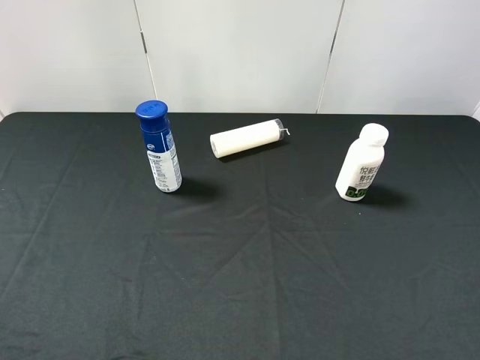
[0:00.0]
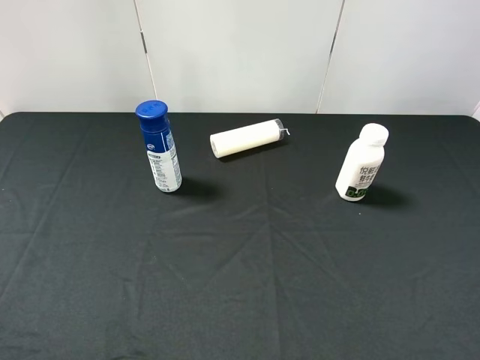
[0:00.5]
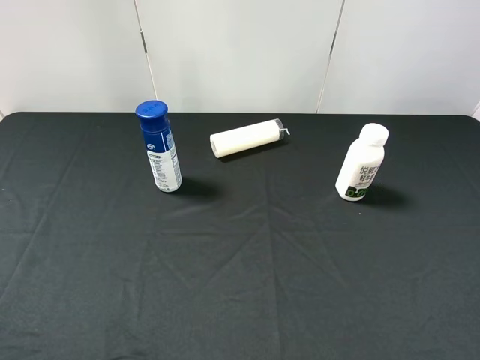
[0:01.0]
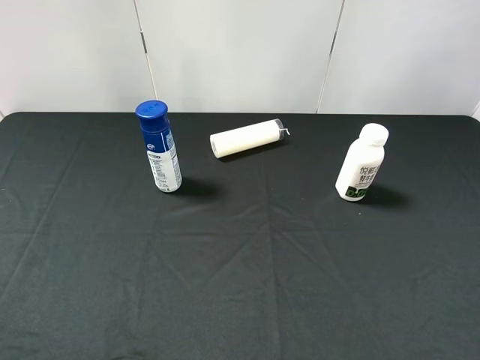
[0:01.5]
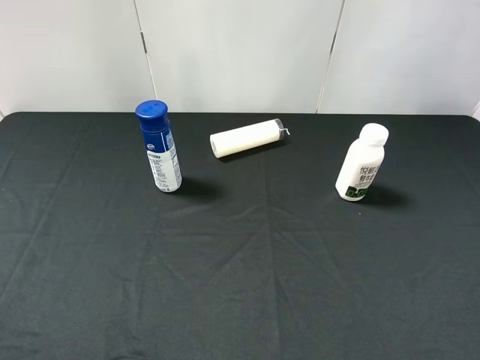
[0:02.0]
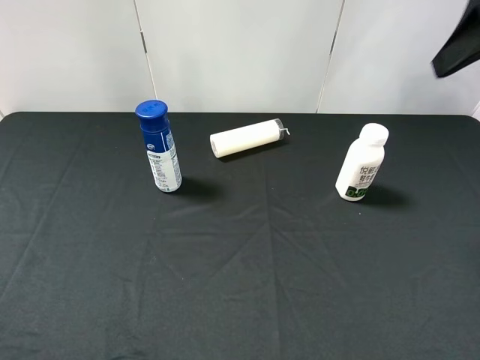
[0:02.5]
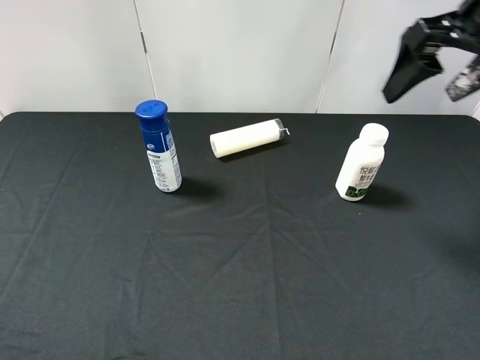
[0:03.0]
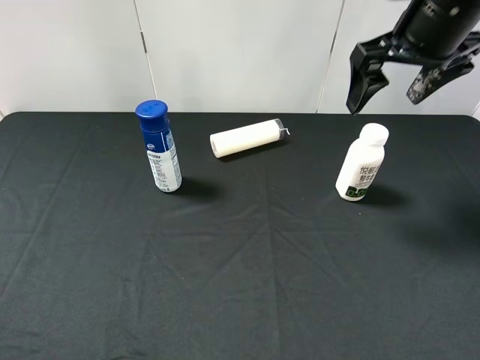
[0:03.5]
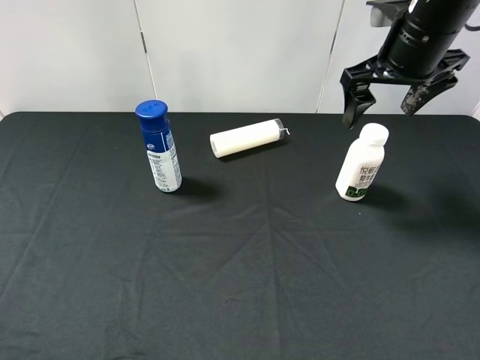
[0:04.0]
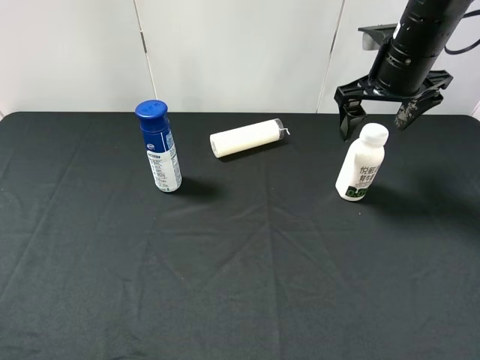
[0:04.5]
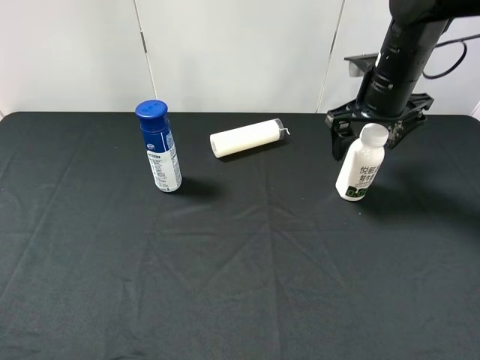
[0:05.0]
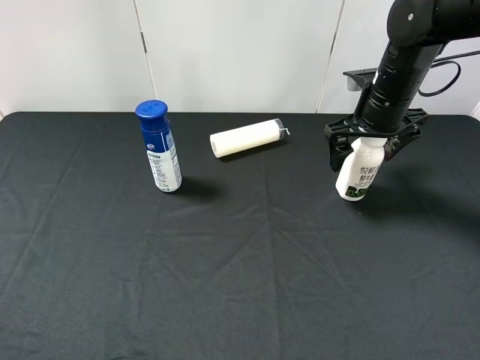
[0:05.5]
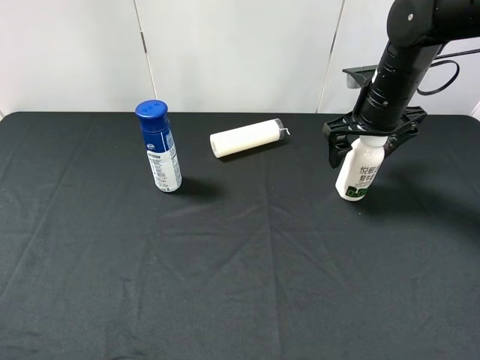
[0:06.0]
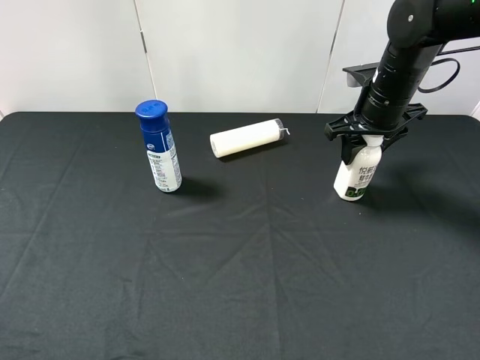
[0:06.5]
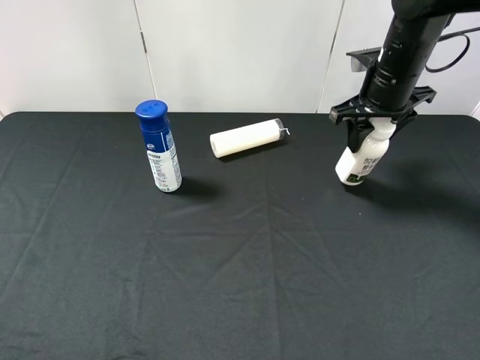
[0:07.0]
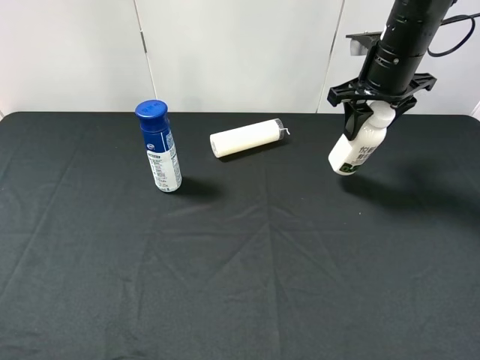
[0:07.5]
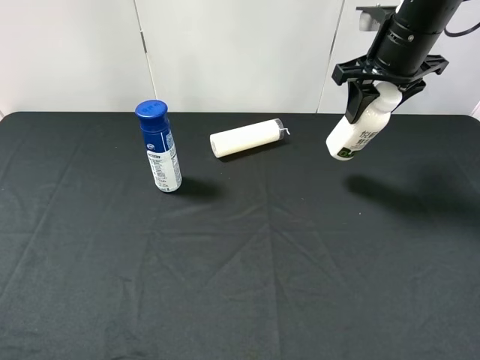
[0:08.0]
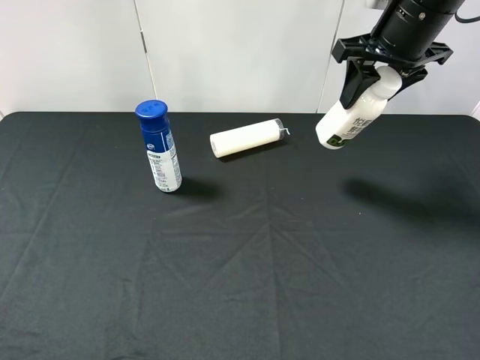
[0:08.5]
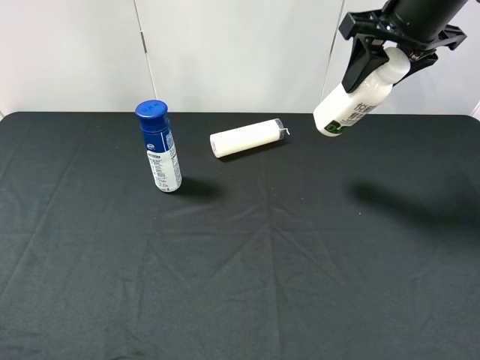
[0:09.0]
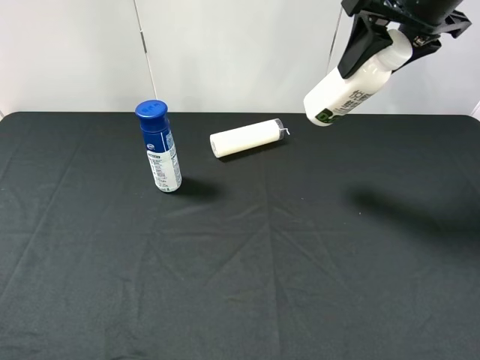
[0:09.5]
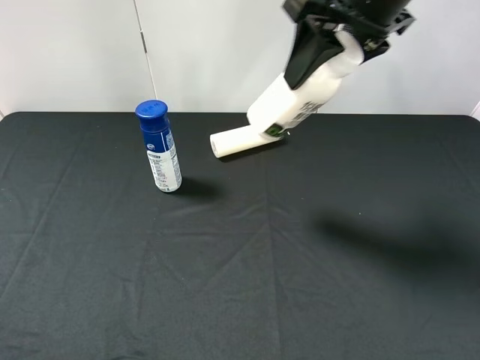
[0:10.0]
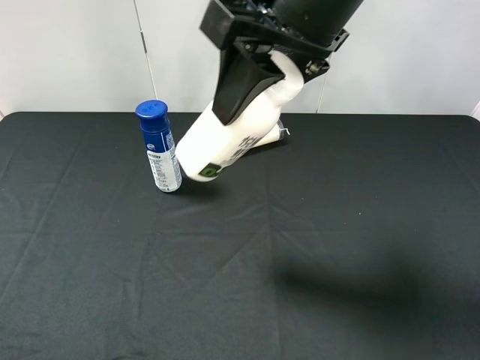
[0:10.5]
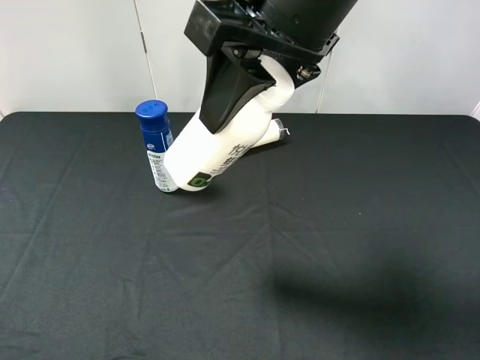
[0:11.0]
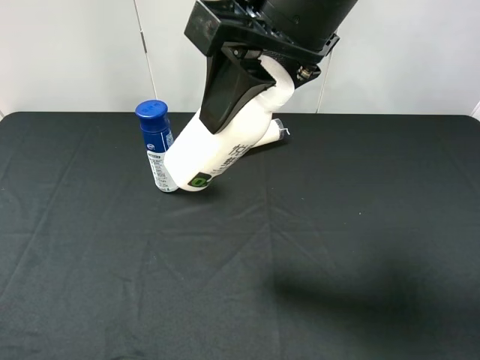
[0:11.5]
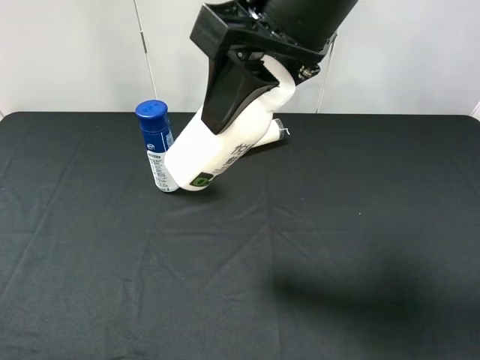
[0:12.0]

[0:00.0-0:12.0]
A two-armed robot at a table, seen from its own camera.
Task of the whole recording: use the right gripper to pick up the item and transfer it from the right gripper to the left gripper.
Step, 0:00.0 to 0:06.0: Use the right gripper to grab the milk on the right side of the table.
0:02.0 to 0:04.0: The right gripper is displaced forward and downward by some 25 cm.
0:04.0 to 0:06.0: The right gripper shifts about 10 cm downward.
0:06.0 to 0:08.0: The right gripper is displaced upward by approximately 10 cm, and closes up.
0:08.0 to 0:10.0: The right gripper moves backward, to the left and upward, about 15 cm.
0:10.0 to 0:12.0: The right gripper is displaced to the left and backward by roughly 10 cm.

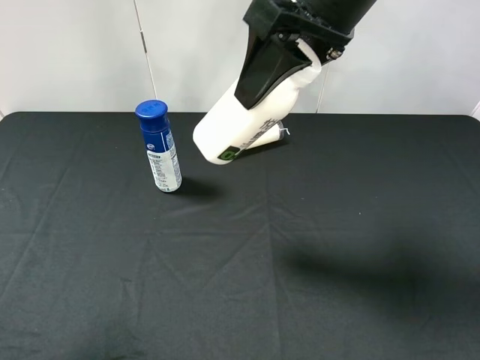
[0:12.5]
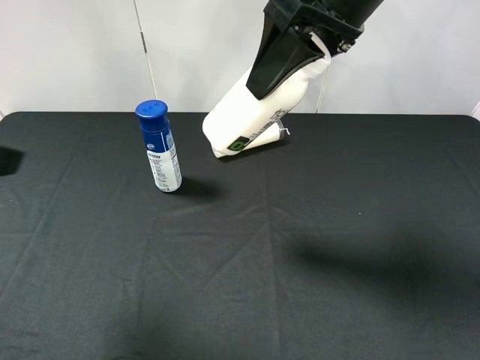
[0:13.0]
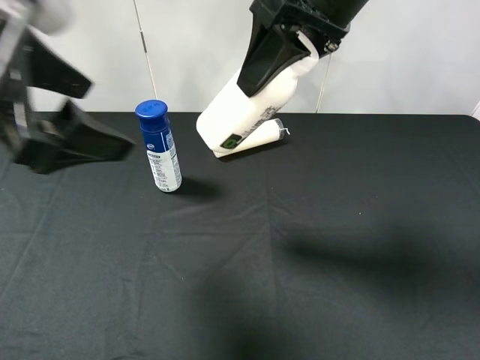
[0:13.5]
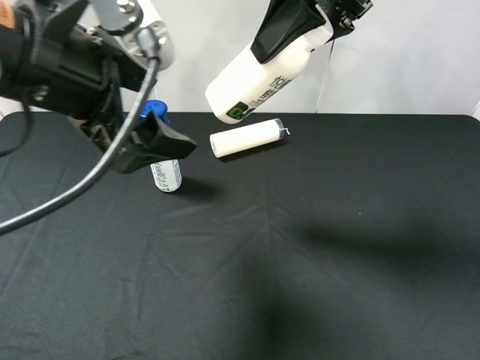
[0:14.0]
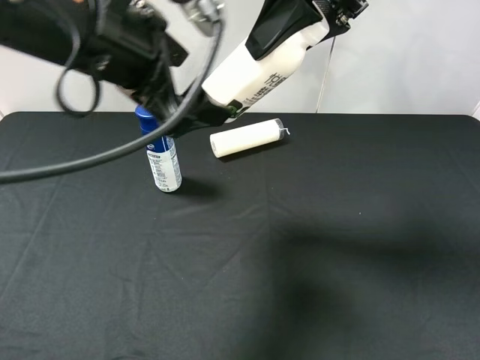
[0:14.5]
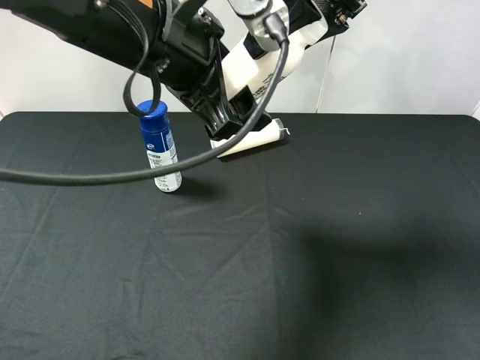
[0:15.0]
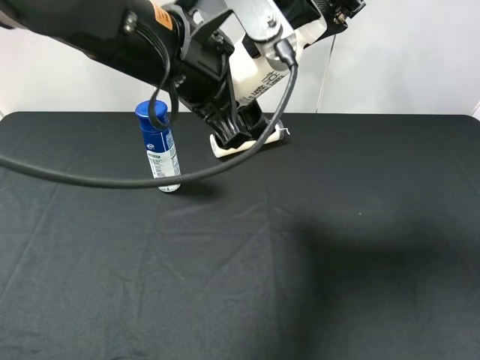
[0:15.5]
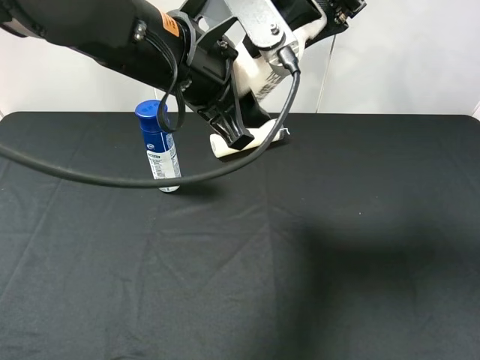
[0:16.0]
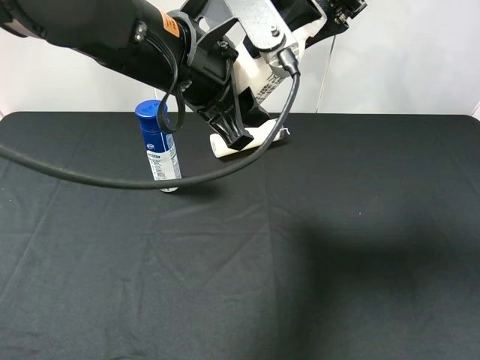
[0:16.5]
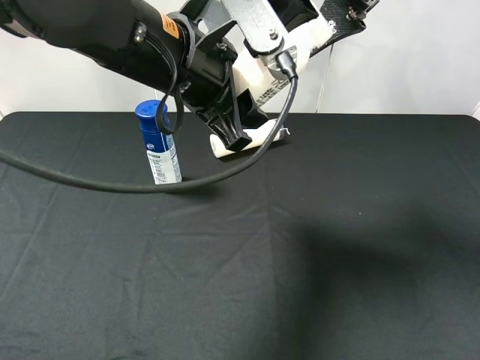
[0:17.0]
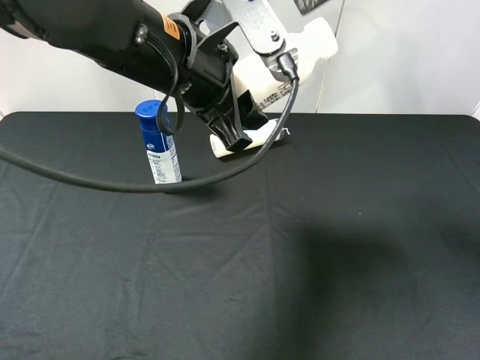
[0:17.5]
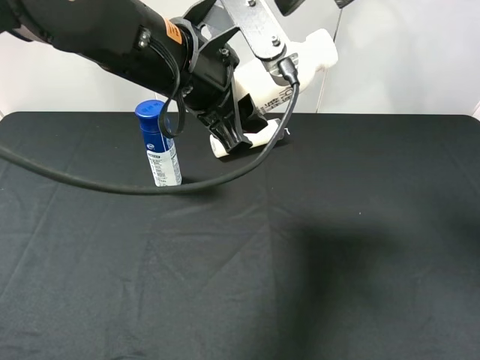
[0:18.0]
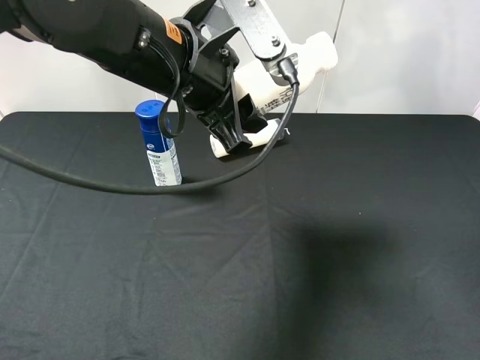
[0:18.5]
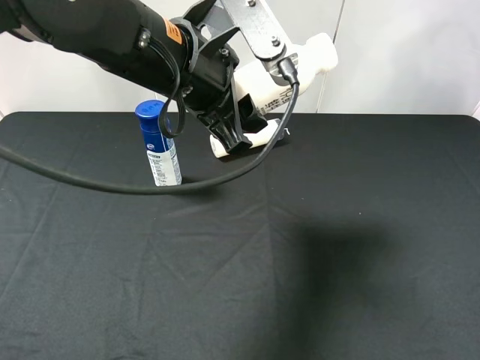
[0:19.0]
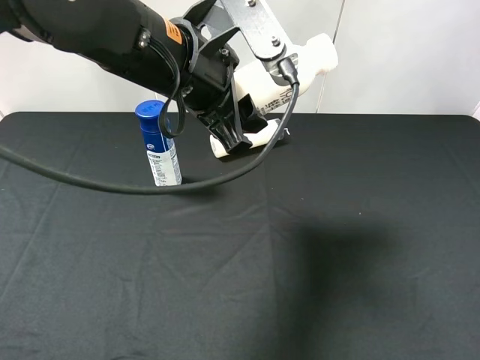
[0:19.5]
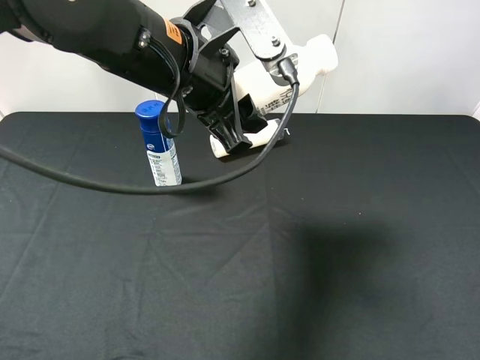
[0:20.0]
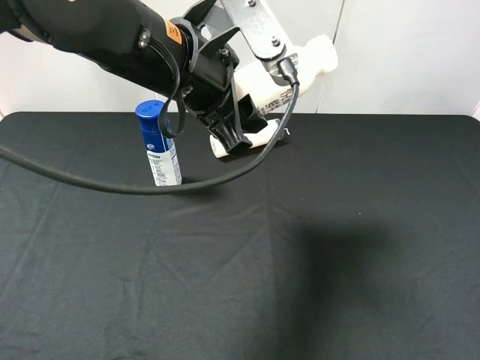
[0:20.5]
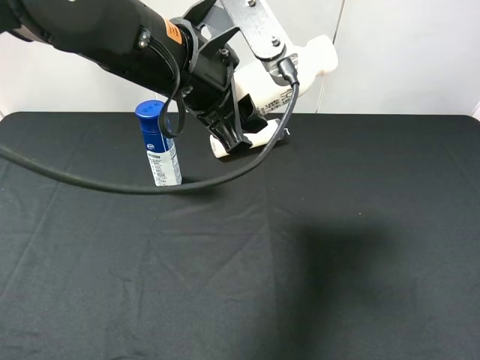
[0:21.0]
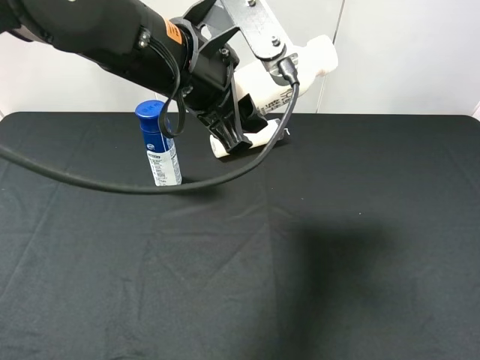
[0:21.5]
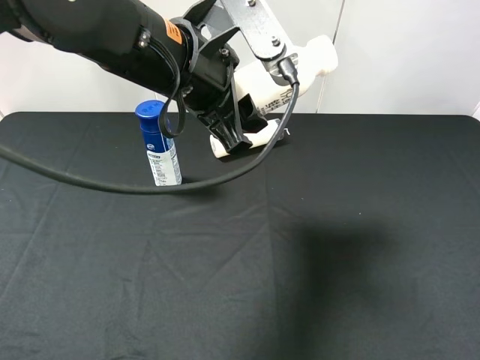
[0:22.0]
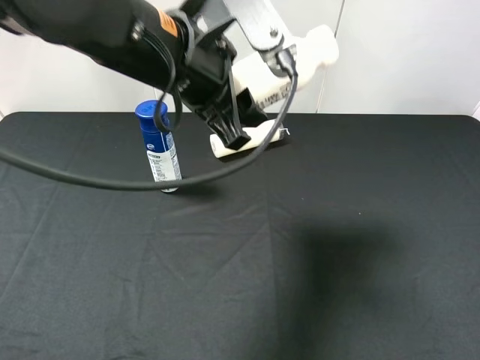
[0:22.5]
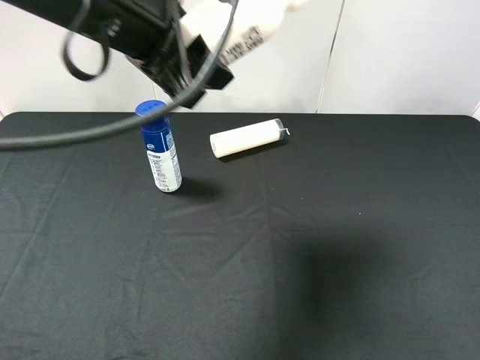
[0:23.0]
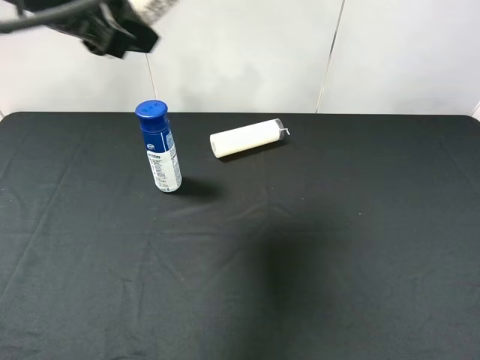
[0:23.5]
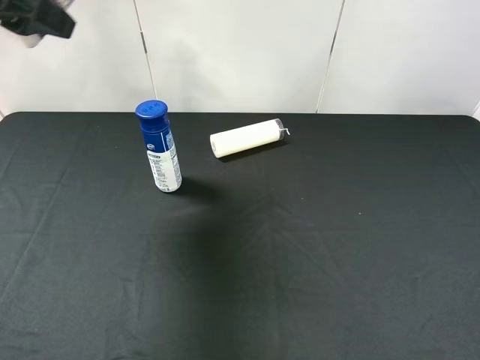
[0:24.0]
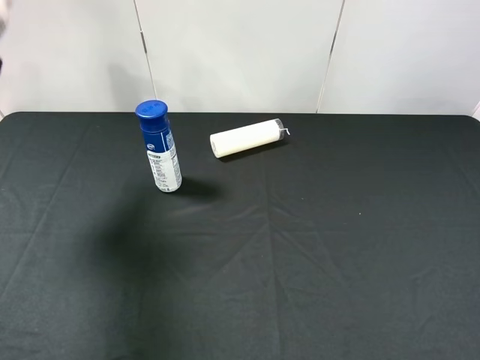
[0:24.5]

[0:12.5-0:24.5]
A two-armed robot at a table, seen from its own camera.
Task of the whole recording: use the right gripper to pick up the item and transfer it from the right gripper to the left gripper.
Step, 0:12.5 to 0:16.5: Pass the milk to the left gripper.
0:12.5 to 0:14.5: The left gripper heads to the right and forward, covering about 25 cm; the right gripper changes place by about 5 cm.
0:14.5 to 0:16.5: The left gripper changes place by roughly 5 cm, and closes.
0:16.5 to 0:18.5: The right gripper is displaced upward and to the right by about 10 cm, and opens.
0:22.5 to 0:24.5: The left gripper goes approximately 25 cm to the left.

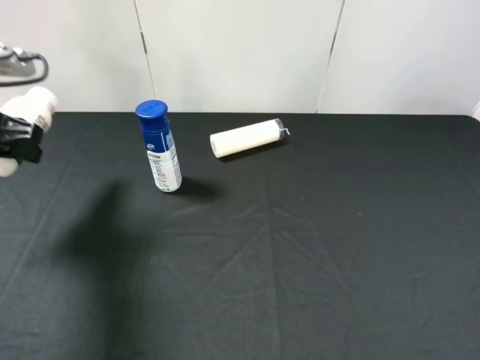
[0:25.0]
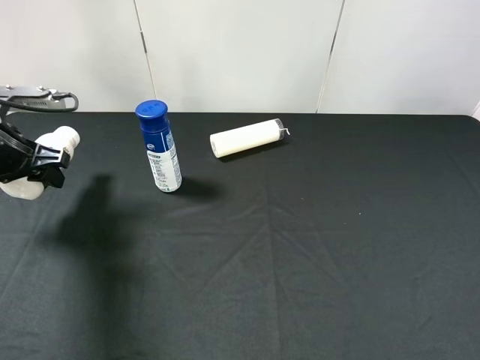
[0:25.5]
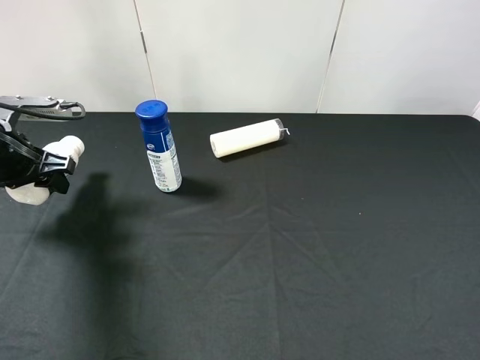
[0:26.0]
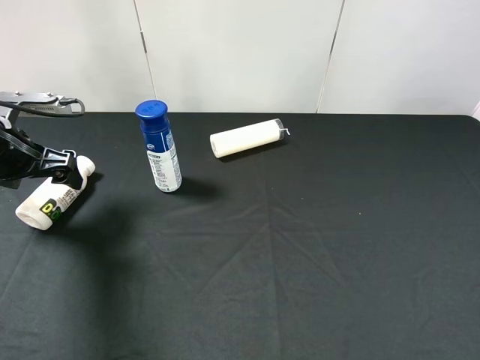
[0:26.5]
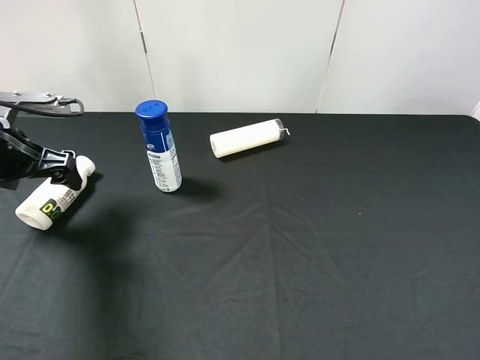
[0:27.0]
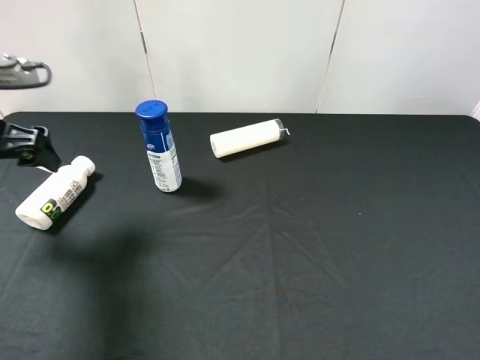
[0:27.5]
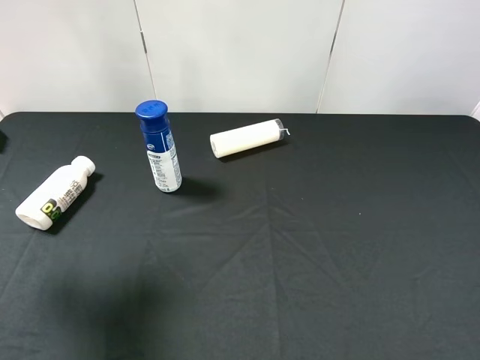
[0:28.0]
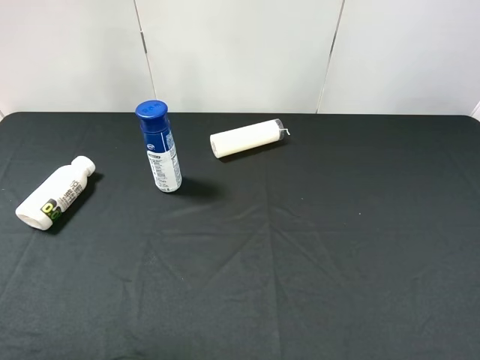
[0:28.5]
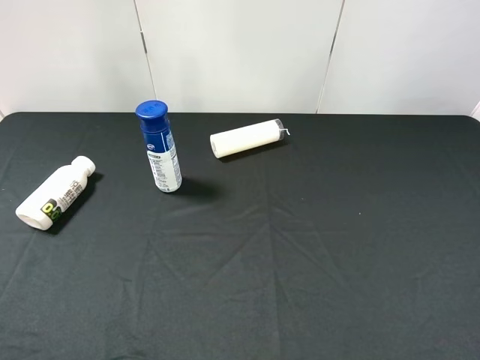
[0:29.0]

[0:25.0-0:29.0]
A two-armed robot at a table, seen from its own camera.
Task of the whole recording: use the right gripper to pick up the item and transfer it from the right gripper to the left gripper.
0:25.0 to 0:27.0: The left gripper travels downward by approximately 5 cm, and opens its fingers.
0:27.0 to 0:29.0: The left gripper is displaced backward and upward by some 35 cm.
